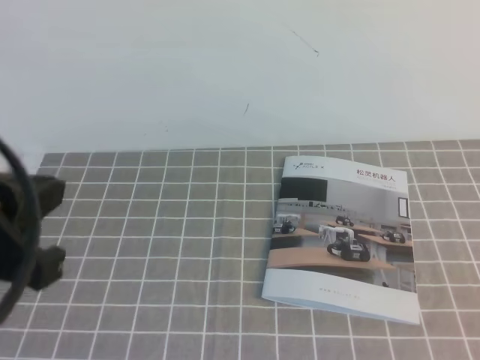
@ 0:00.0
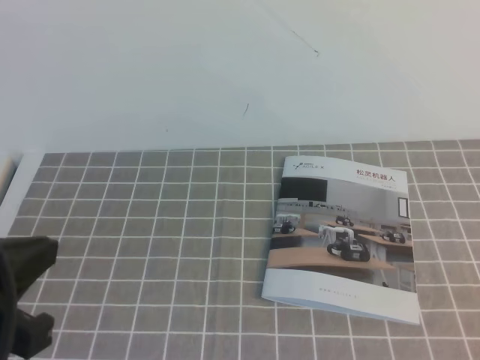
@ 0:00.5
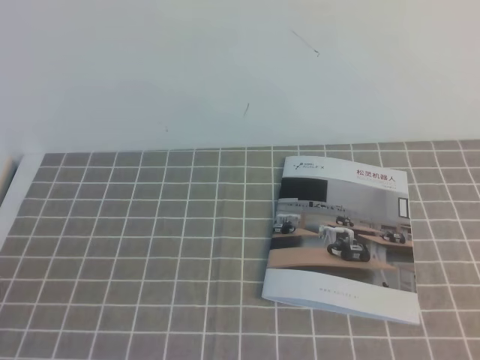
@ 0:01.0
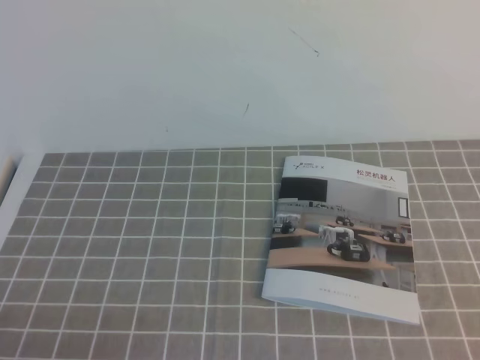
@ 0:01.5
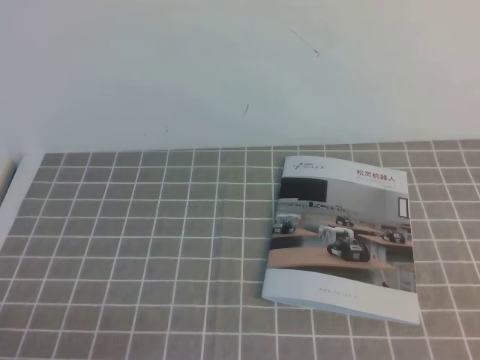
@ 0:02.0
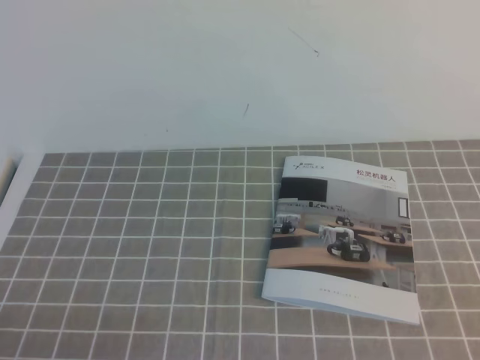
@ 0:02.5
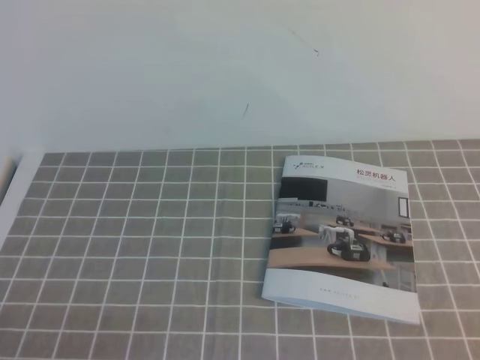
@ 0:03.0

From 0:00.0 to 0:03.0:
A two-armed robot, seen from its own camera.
Task of the whole recording: on the grey tablecloth, hold the book with one hand and close it with the other.
Step, from 0:00.0 to 0:03.0: Close the open book.
From 0:00.0 to 0:01.5: The left gripper is displaced downward and backward by roughly 20 cm.
